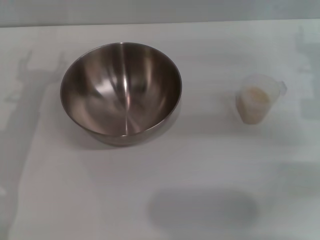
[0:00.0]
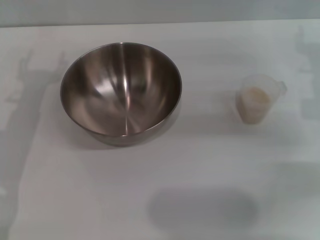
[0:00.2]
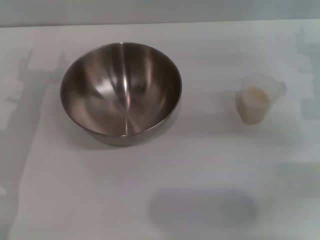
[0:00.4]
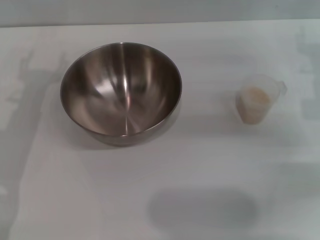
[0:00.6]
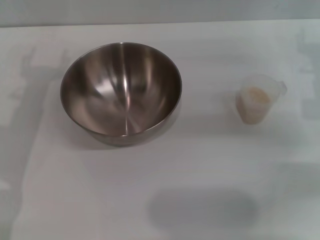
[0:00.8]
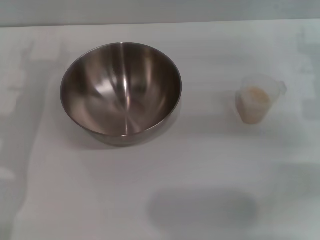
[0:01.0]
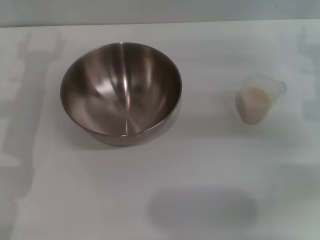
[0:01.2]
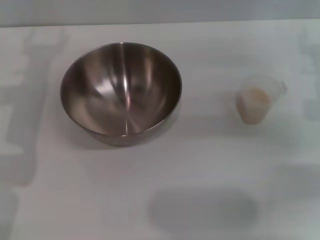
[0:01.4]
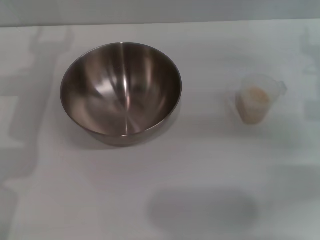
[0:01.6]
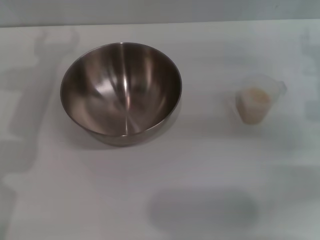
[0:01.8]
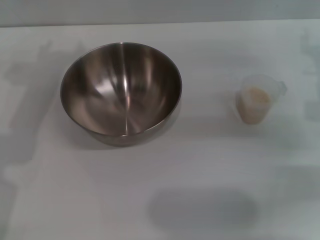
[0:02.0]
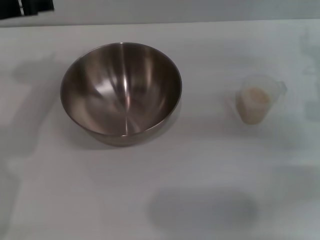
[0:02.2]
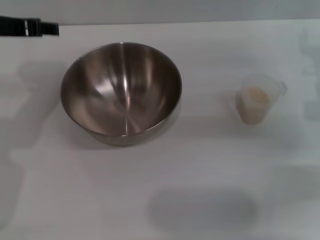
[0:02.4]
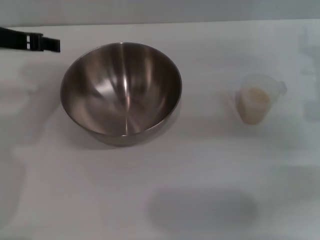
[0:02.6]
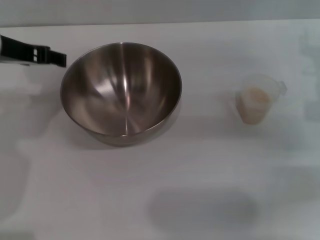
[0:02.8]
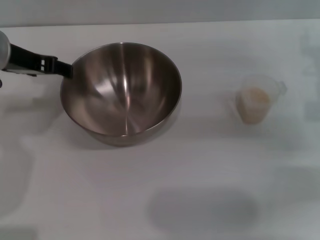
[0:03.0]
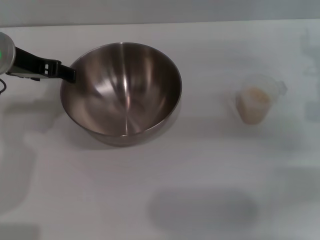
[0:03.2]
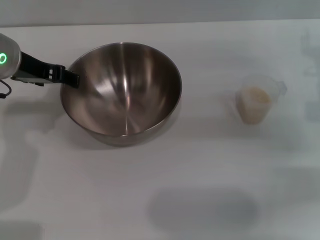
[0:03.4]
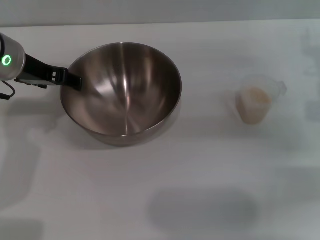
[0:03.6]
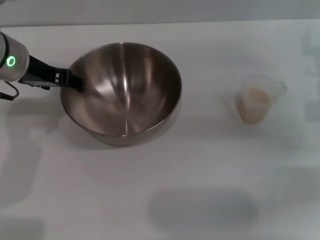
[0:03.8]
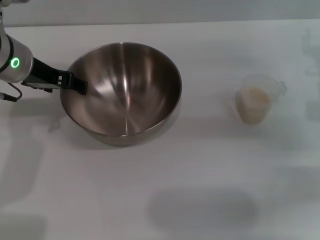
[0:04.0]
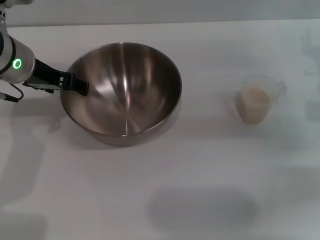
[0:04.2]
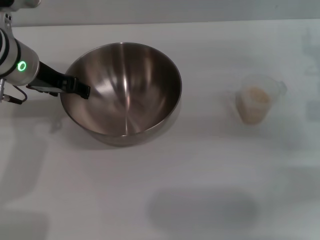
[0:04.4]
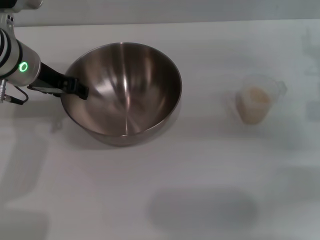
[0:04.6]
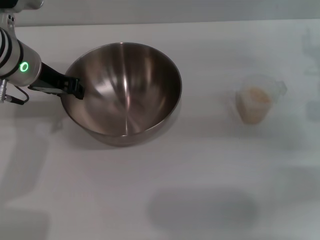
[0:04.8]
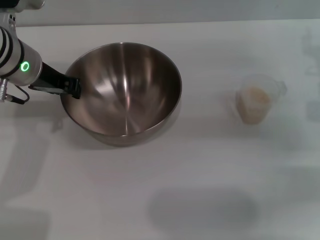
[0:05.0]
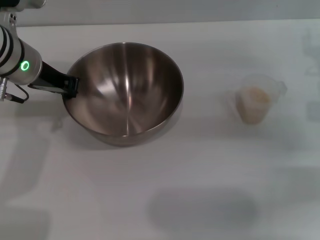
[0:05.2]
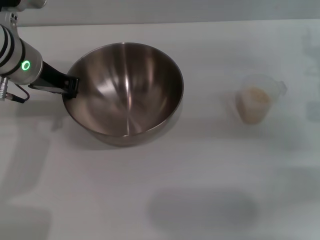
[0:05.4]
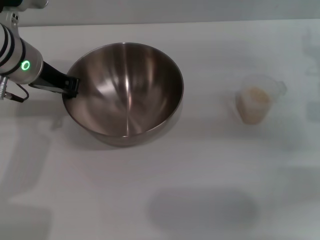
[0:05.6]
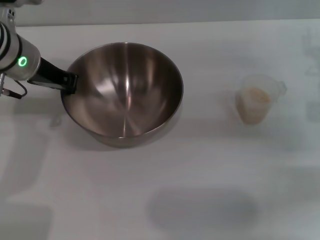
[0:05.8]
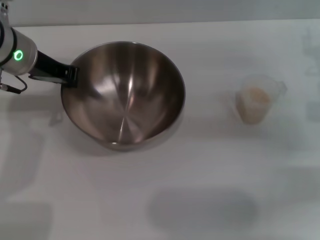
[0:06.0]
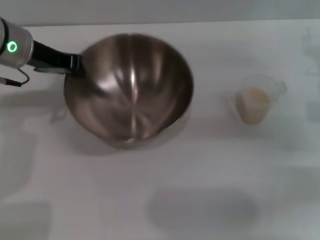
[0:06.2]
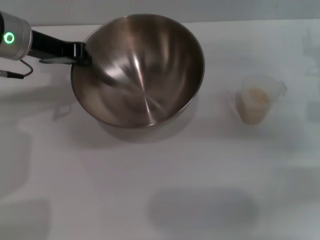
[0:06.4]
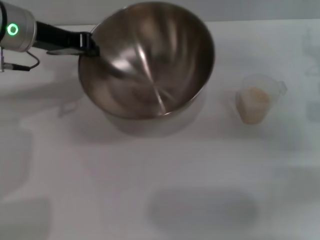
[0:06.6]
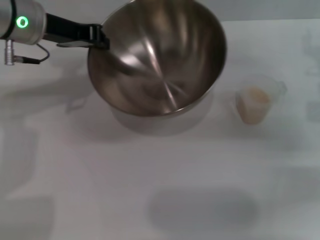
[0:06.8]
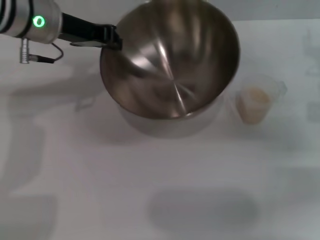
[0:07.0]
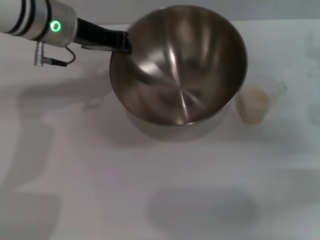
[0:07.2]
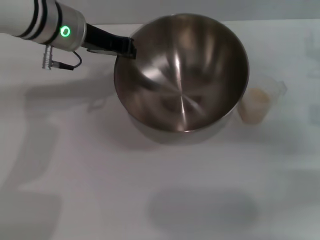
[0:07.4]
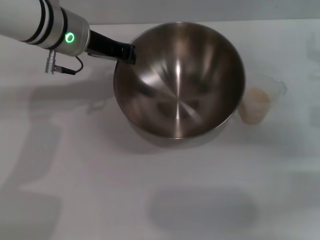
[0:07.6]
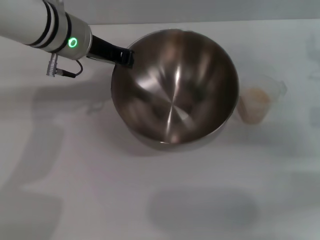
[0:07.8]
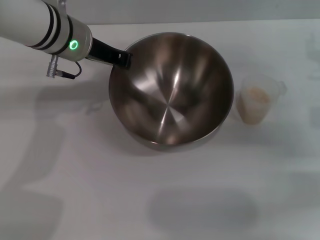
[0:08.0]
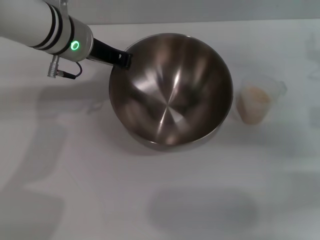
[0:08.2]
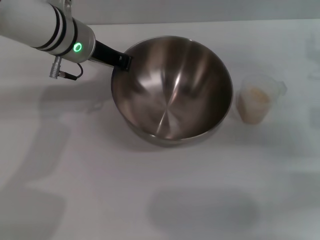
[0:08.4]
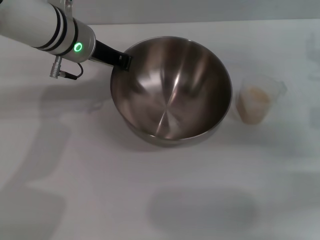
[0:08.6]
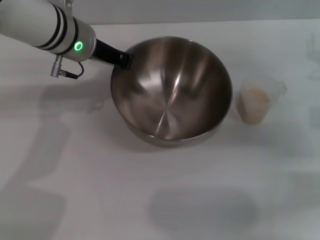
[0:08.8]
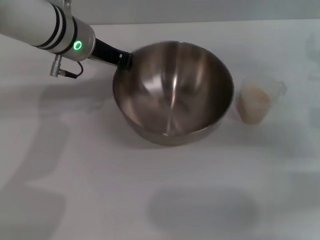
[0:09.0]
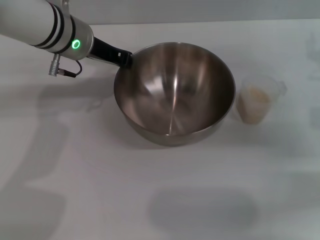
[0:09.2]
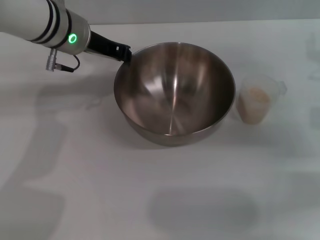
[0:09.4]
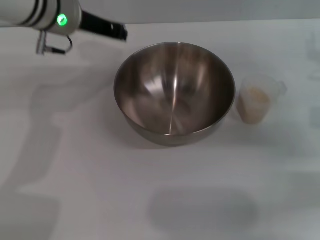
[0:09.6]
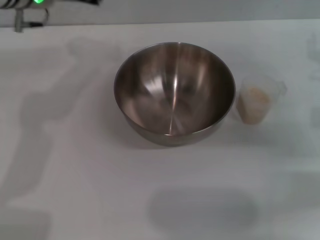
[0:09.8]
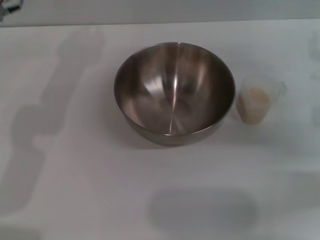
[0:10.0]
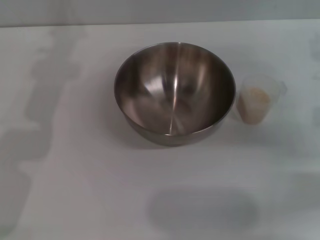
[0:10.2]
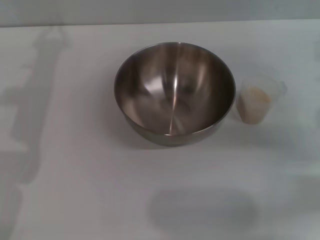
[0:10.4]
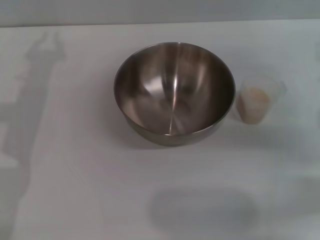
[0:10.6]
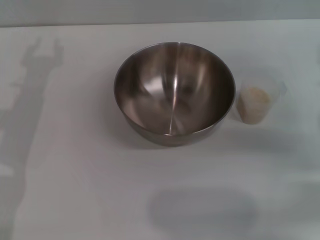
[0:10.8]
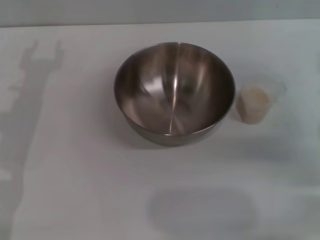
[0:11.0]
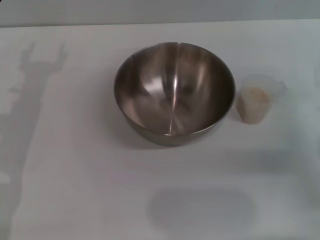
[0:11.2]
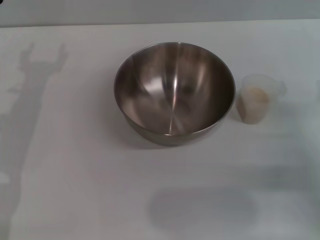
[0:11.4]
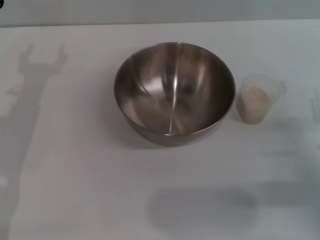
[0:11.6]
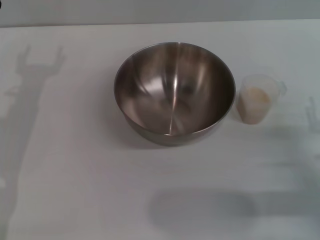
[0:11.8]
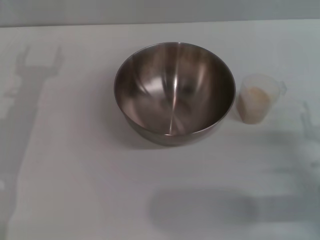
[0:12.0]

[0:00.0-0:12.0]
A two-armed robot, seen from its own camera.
Task of the whole recording: Place the bowl in the middle of the table with one hand and pour the rice from the grain cup into it with the other hand.
Step, 0:00.0 to 0:06.4: Pick up the bowl with the left gripper.
Step, 0:06.6 to 0:09.2: Place the bowl in the center of view with the left gripper.
0:03.0 to 0:04.4: The grippers make only small movements.
0:04.4 to 0:06.0: The left gripper closes.
0:06.0 to 0:07.6: The left gripper is displaced to the right by some 5 cm.
0:07.6 to 0:09.0: The grippers stay close to where they were, moving slightly.
0:09.0 to 0:10.4: The left gripper shifts approximately 10 cm to the left.
0:10.4 to 0:12.0: The right gripper goes some 20 cm backward and downward.

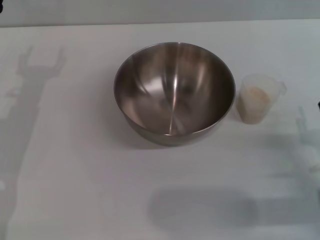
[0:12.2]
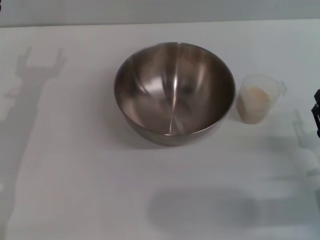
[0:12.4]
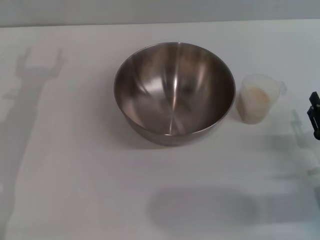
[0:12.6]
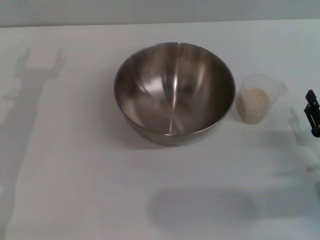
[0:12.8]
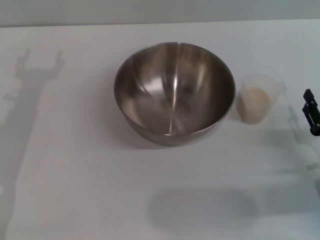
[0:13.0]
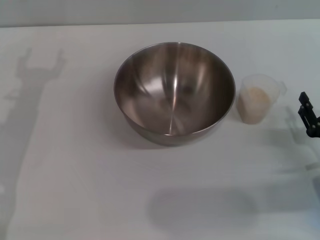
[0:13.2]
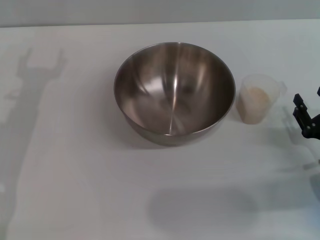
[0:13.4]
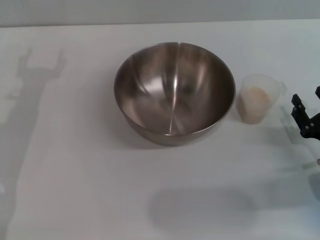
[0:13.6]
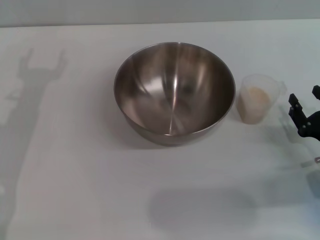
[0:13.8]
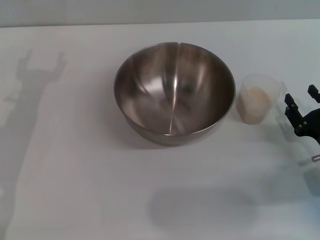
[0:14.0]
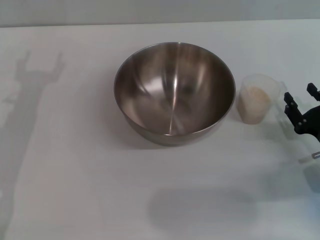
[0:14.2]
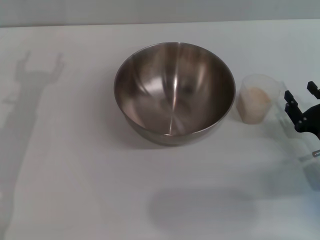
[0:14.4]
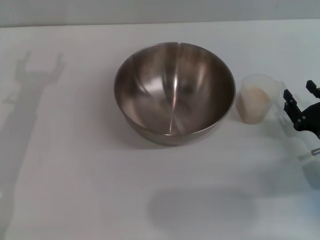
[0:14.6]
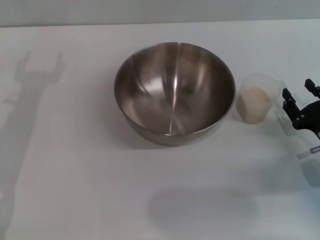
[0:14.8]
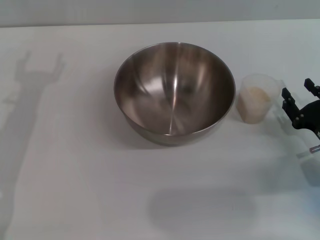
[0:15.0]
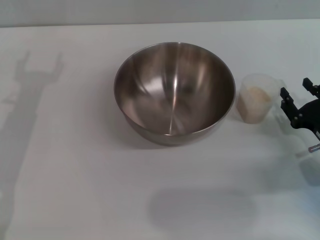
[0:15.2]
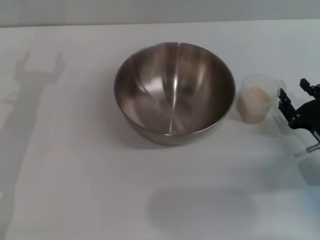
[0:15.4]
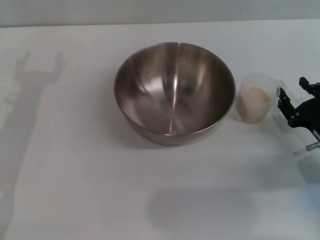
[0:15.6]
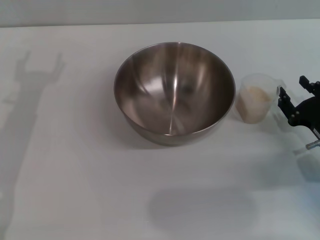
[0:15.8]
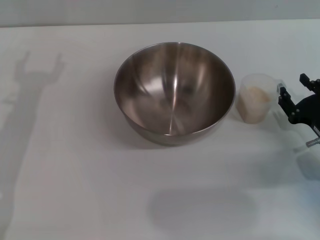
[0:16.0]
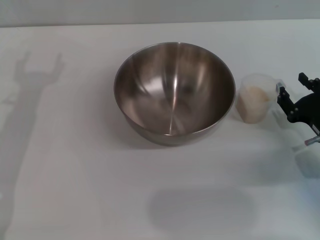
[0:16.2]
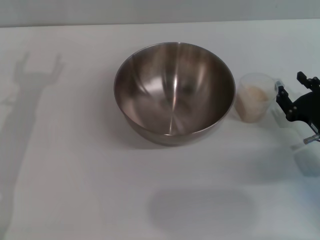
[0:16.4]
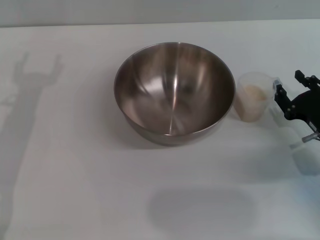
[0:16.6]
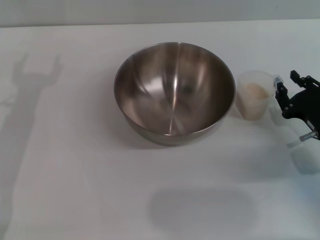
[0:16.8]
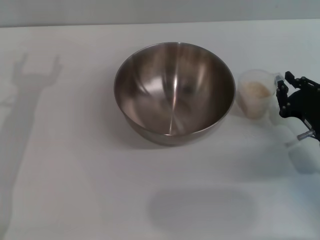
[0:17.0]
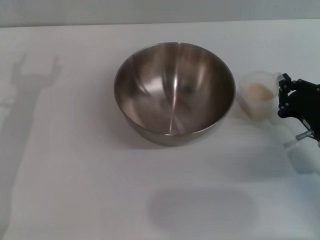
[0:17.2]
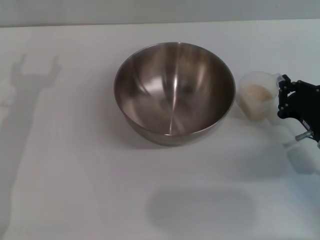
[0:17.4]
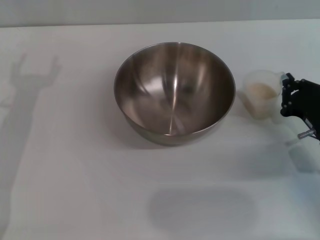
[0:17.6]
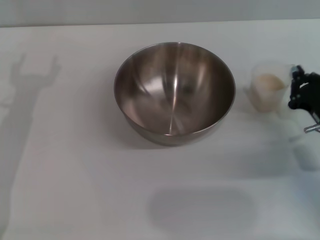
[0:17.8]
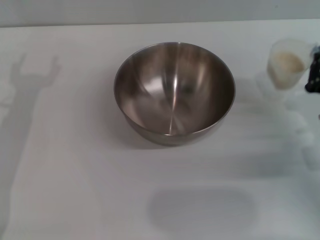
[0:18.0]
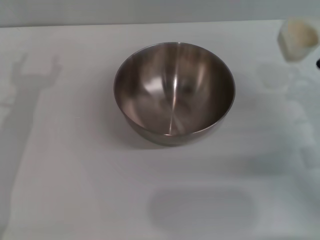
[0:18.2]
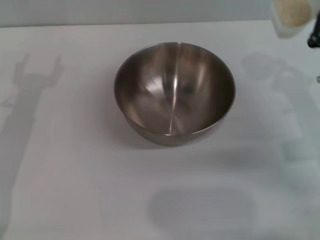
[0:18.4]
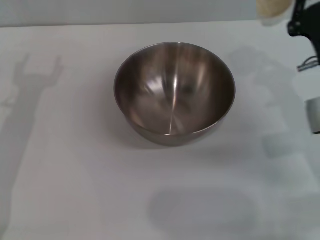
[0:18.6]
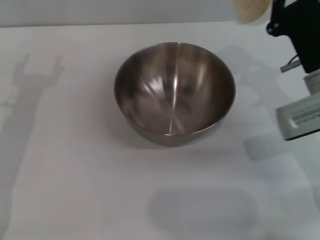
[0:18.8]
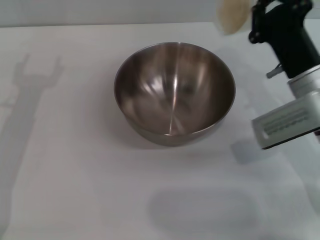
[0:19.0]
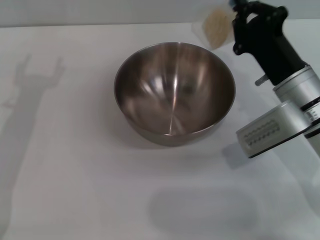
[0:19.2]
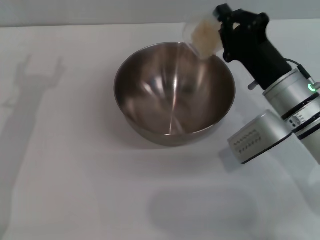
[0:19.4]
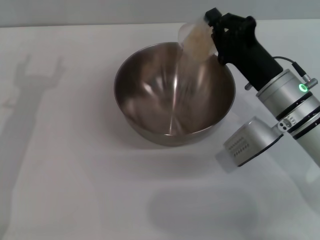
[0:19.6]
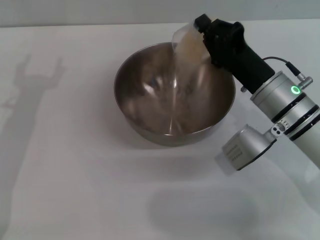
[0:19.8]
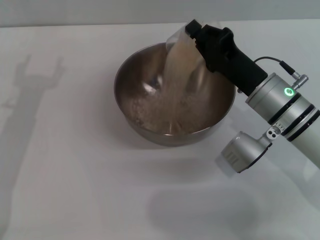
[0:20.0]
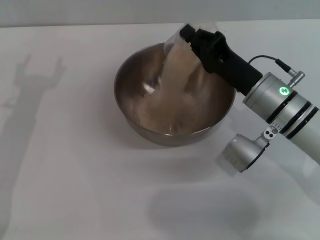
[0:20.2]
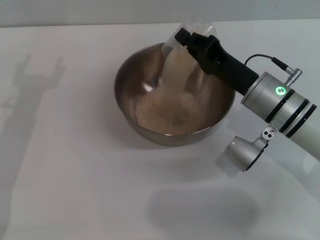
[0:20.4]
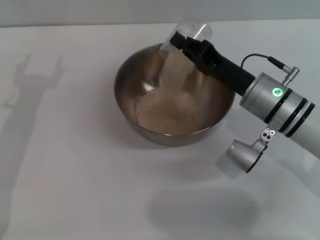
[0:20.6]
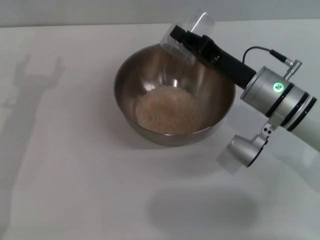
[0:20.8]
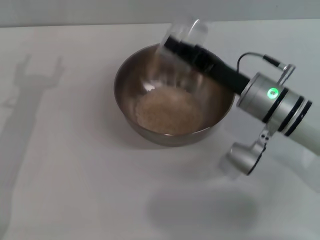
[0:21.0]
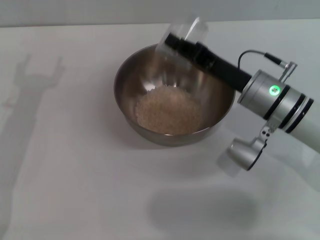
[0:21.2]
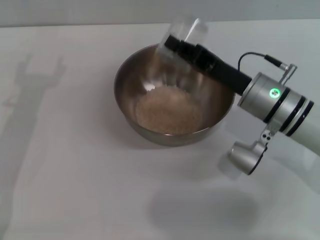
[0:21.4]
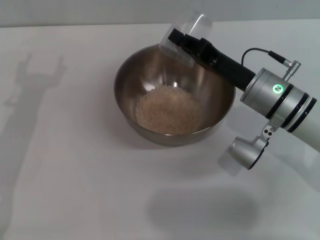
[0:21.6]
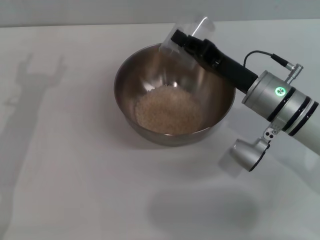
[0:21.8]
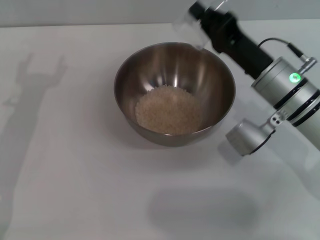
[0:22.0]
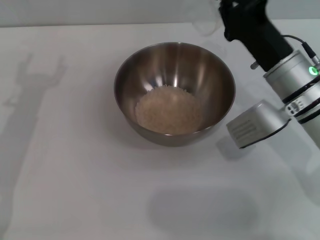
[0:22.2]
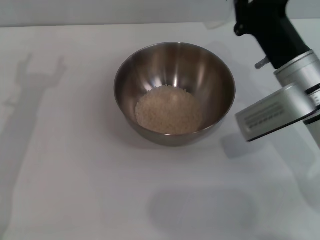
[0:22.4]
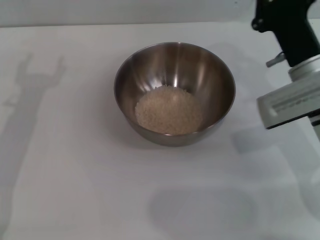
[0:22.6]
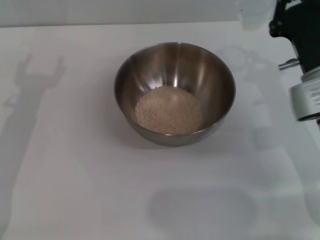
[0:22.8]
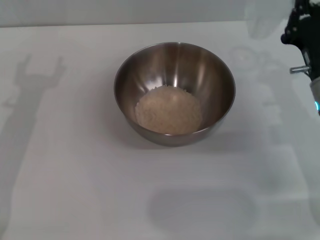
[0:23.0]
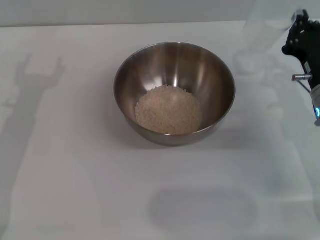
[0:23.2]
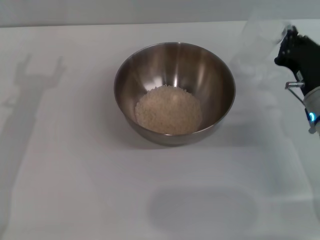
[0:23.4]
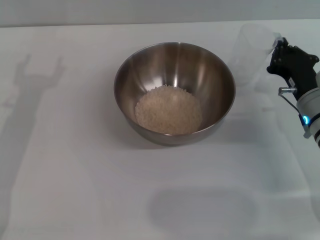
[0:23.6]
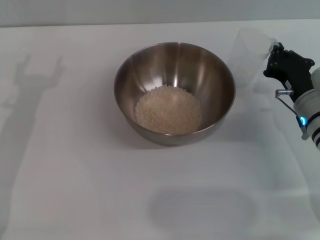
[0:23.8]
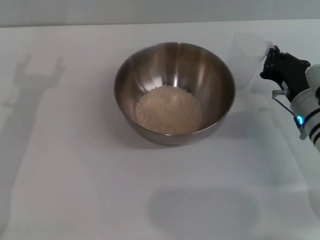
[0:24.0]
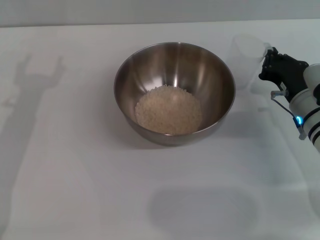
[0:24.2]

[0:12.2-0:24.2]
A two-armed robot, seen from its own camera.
Task of the whole recording: Place the bowl in the middle of the table with one hand and pour the rice from the grain cup into it with the other hand.
Step, 0:12.2 to 0:18.0: Pick up the cup with rice in it with the right gripper.
Step, 0:18.2 to 0:22.2: Pour the rice from the cup into the bowl with the right gripper.
0:12.2 to 0:15.2: There are only small adjustments of the grippers.
0:15.2 to 0:16.6: The grippers stay close to where they were, moving slightly.
0:16.6 to 0:18.2: The right gripper closes.
0:18.2 to 0:19.8: The right gripper heads to the left, covering some 10 cm.
0:22.6 to 0:24.2: The right gripper is displaced downward by roughly 5 cm.
